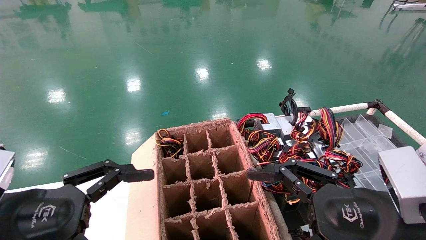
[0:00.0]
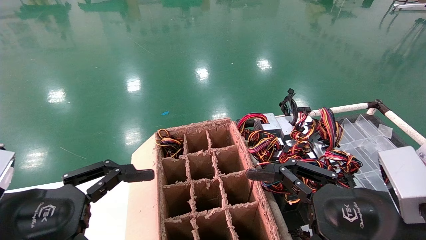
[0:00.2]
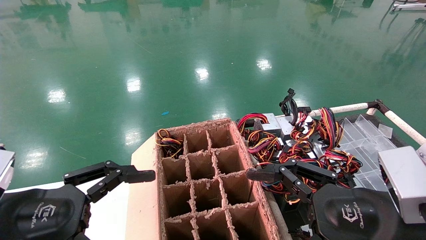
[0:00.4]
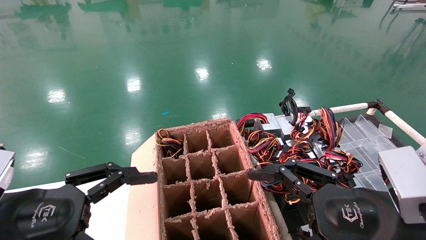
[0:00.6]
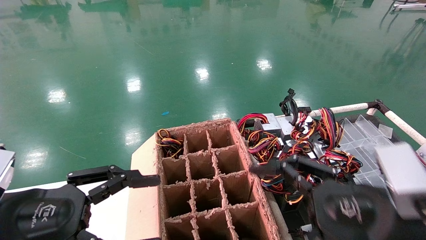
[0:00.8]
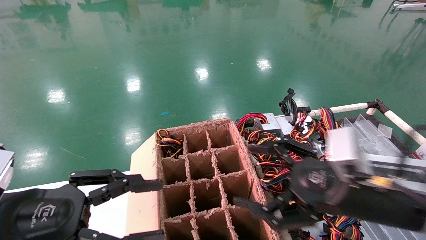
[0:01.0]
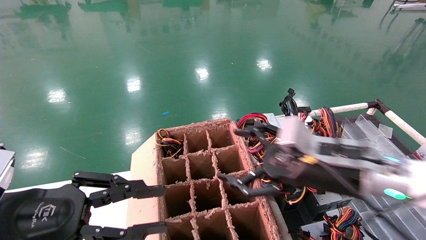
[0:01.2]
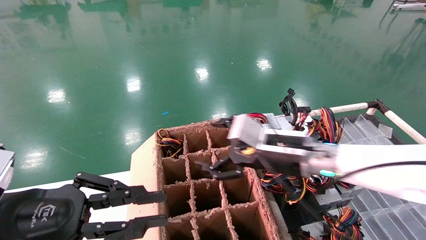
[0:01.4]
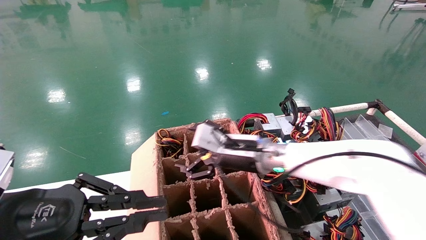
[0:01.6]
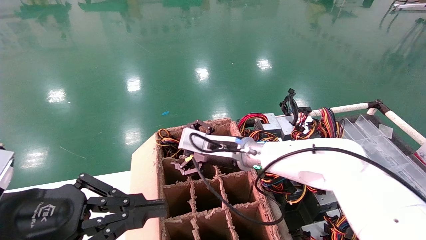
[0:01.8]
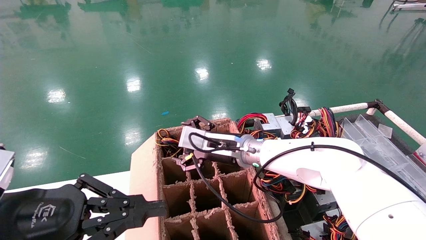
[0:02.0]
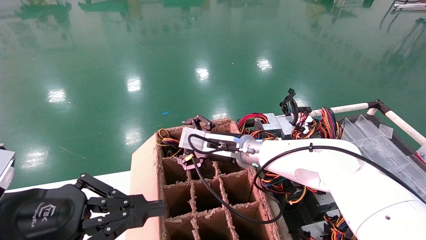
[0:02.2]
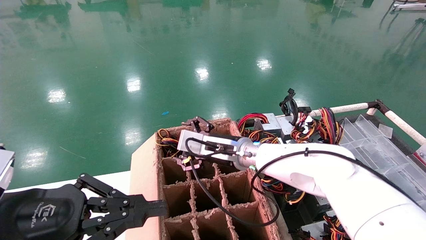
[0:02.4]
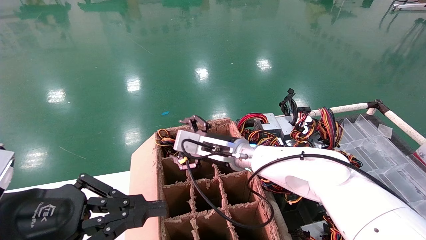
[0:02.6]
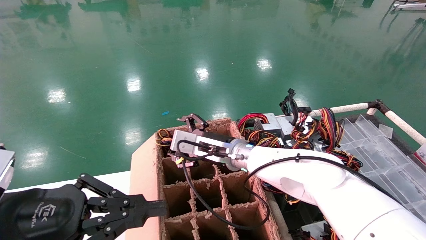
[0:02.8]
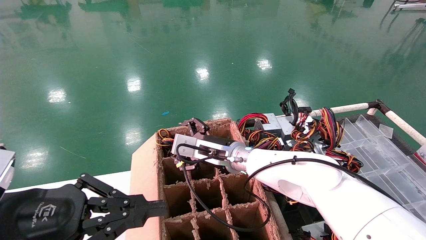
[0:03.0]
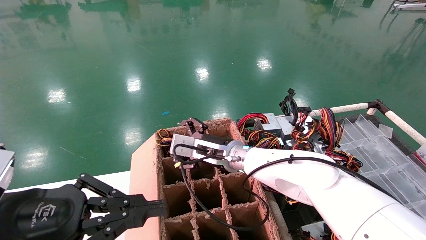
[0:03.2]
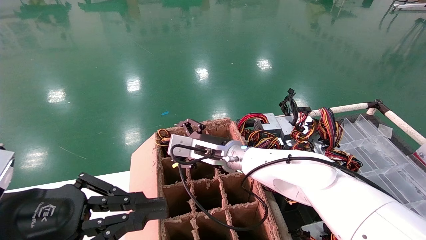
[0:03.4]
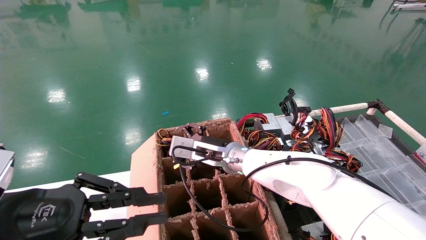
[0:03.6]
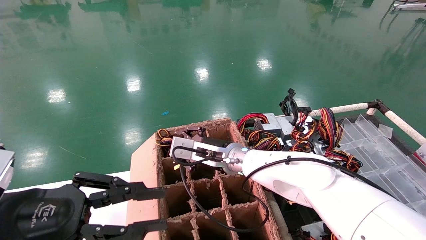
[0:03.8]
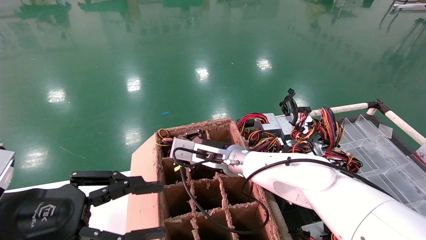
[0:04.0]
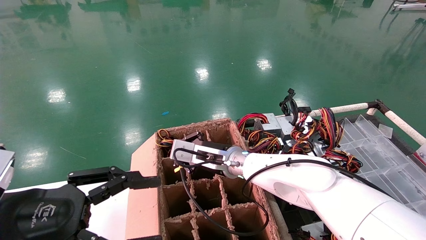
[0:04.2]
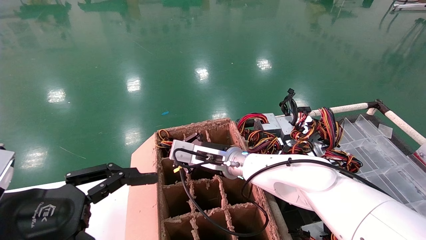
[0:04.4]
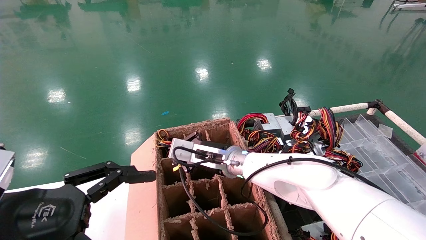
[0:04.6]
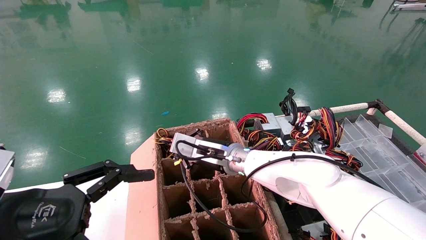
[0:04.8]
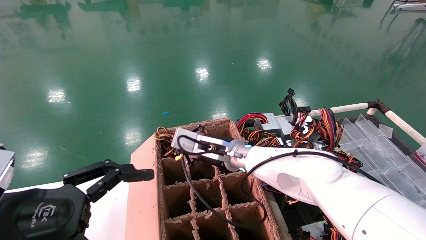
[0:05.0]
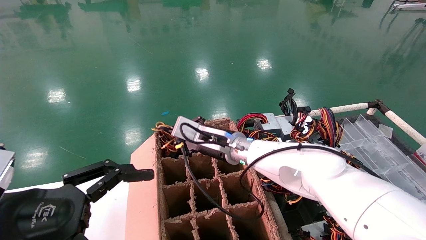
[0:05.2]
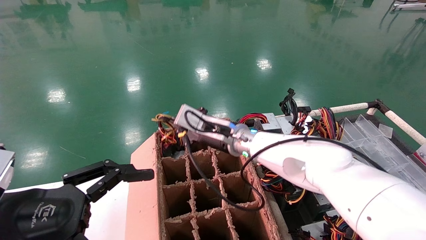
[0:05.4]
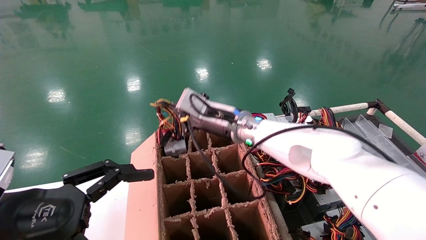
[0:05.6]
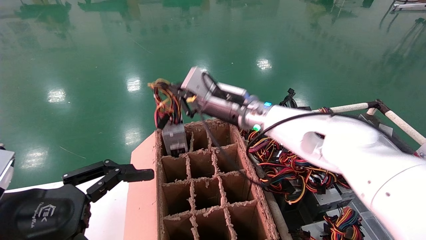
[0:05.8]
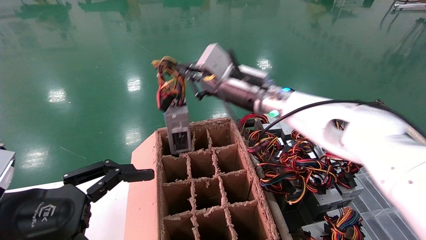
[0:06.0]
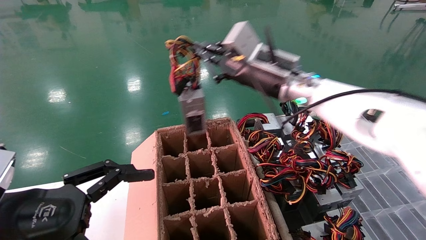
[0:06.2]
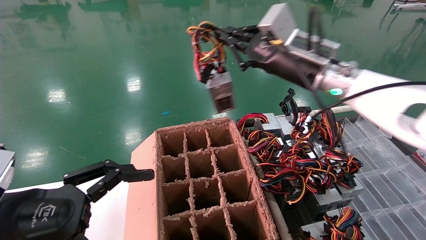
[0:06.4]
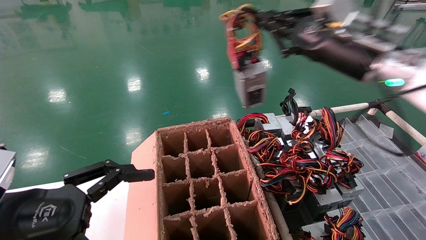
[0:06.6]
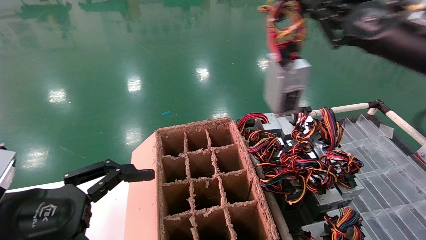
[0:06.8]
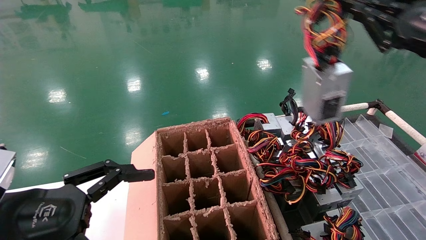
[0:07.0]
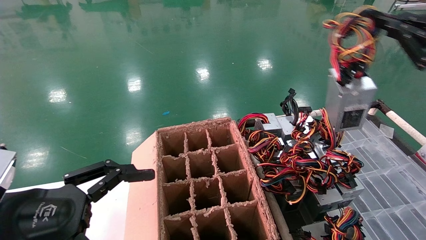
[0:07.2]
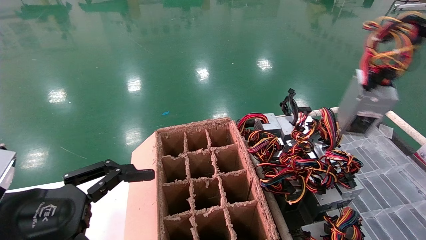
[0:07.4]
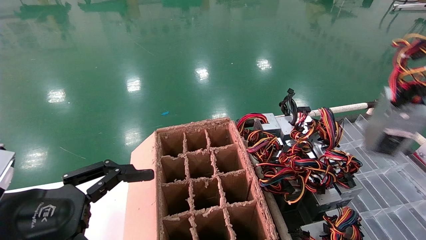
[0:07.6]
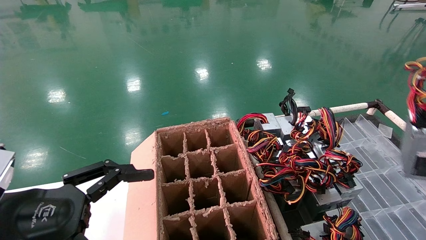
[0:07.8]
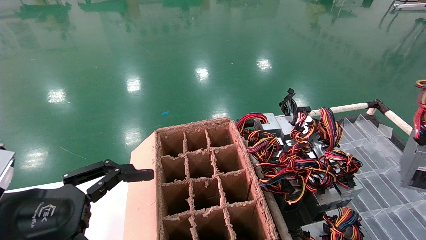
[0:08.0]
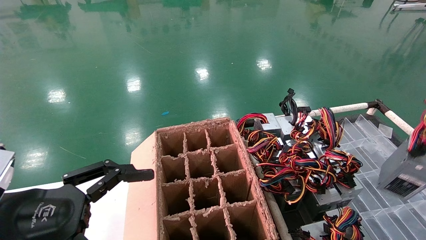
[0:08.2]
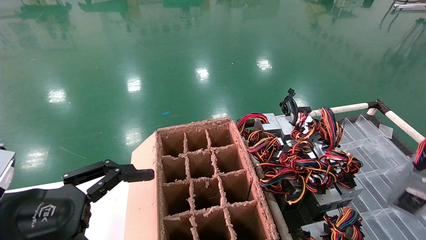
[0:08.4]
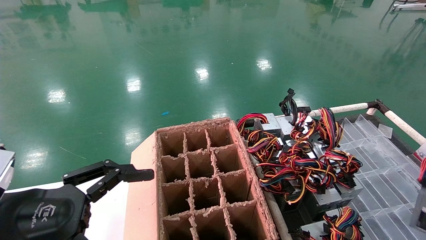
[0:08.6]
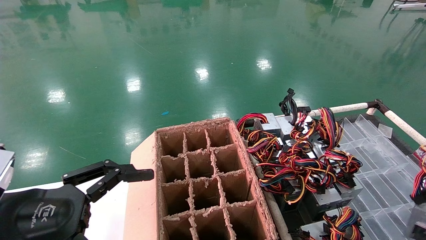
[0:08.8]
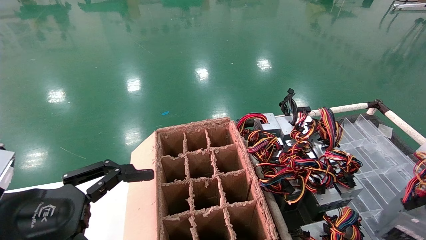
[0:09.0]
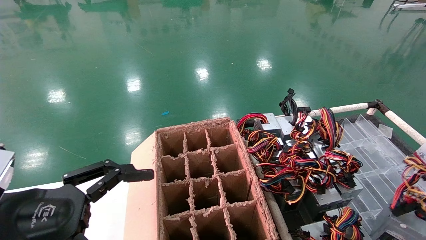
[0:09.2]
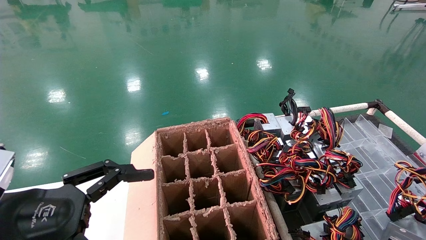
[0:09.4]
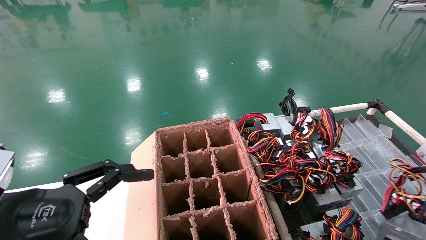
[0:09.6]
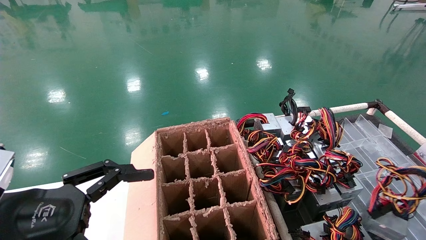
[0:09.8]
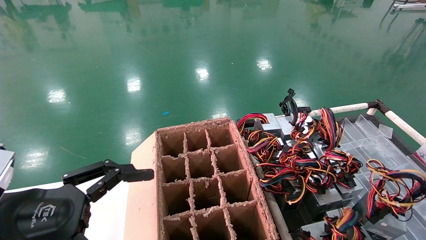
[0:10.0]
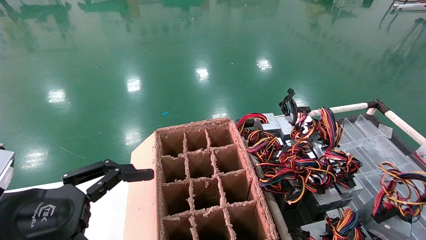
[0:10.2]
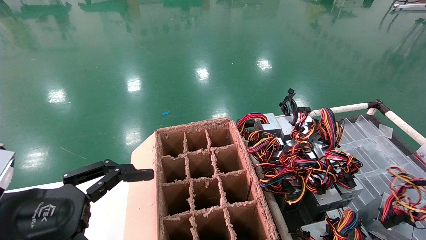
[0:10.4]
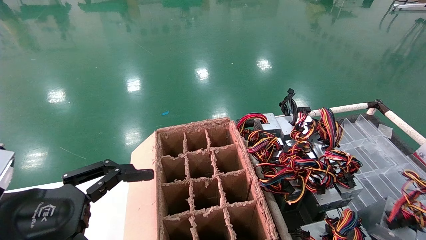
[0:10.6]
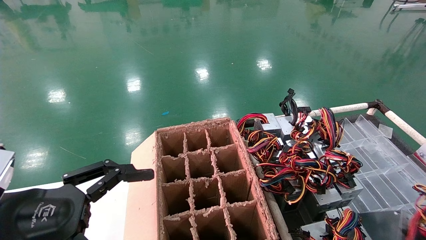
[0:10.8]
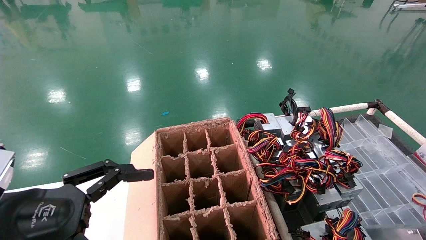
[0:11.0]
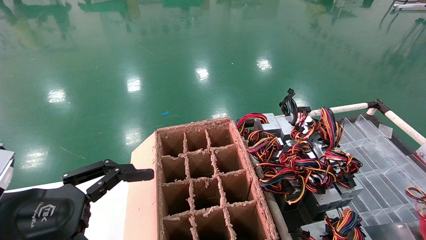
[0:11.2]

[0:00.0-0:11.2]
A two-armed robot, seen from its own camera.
Step, 0:01.0 to 0:04.6: Grab and lift the power supply from the large box.
0:00.0 to 0:01.6: The right gripper travels forward and to the left by about 25 cm. The left gripper closes up.
0:01.6 to 0:03.2: The right gripper is displaced to the left by about 5 cm.
0:03.2 to 0:04.8: The right gripper closes up. Meanwhile the left gripper opens up.
0:04.8 to 0:06.4: The right gripper goes approximately 25 cm upward and to the right.
0:06.4 to 0:08.0: The right gripper heads to the right and backward, covering approximately 40 cm.
0:08.0 to 0:09.6: The right gripper is displaced downward by about 10 cm.
0:09.6 to 0:11.2: The right gripper moves roughly 5 cm.

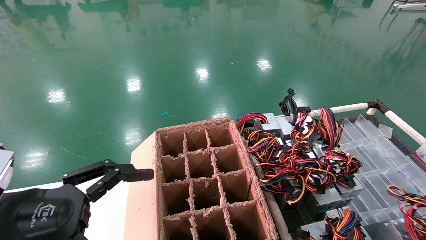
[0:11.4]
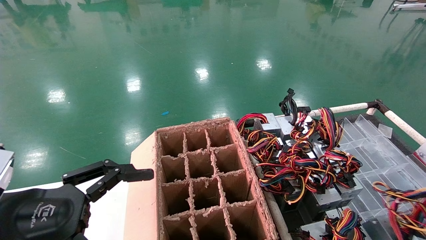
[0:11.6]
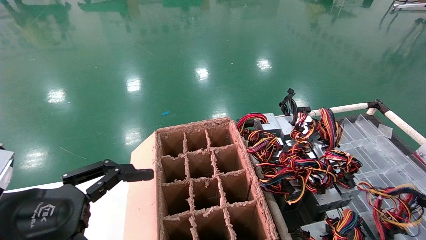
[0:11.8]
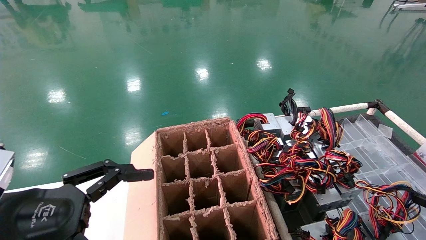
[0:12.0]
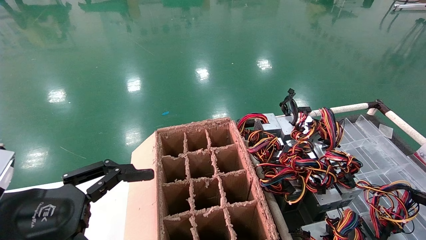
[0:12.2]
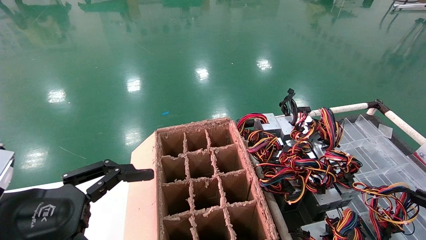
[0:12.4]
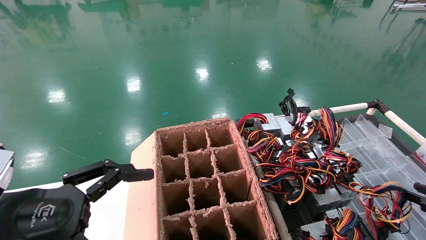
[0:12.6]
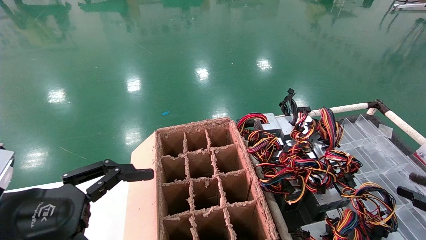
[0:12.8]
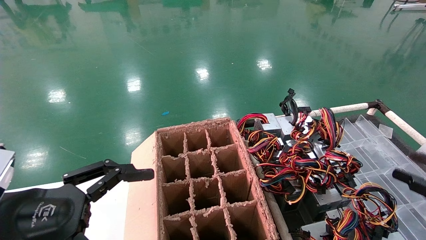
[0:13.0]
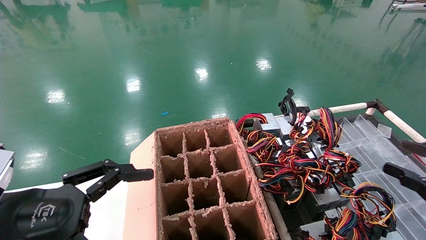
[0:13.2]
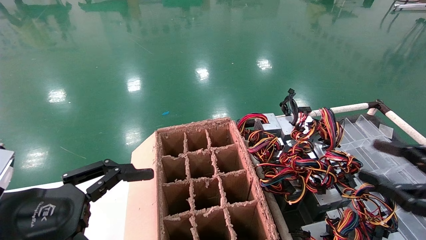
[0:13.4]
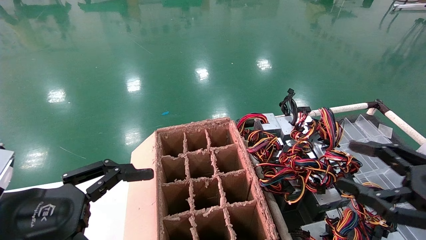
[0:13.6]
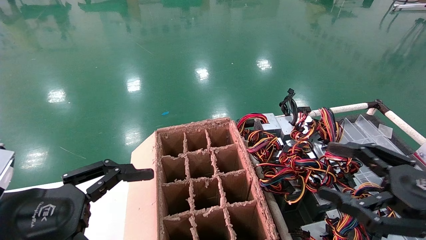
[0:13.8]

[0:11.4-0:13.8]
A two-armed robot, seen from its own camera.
0:11.4 to 0:12.6: The right gripper goes about 5 cm forward.
0:12.6 to 0:13.8: The right gripper moves to the left and upward, some 15 cm, and opens up.
